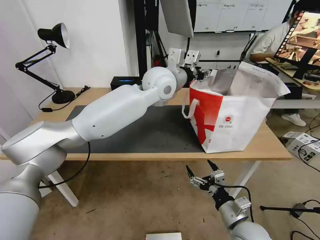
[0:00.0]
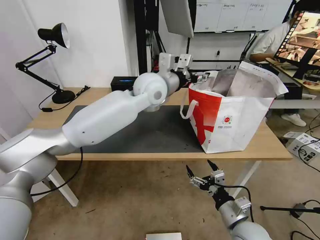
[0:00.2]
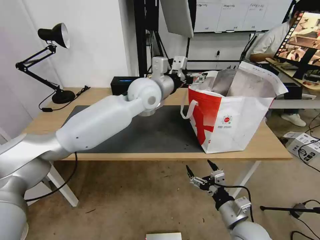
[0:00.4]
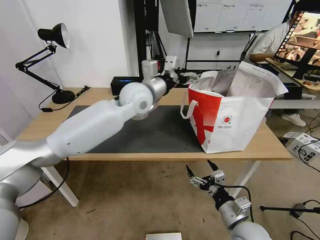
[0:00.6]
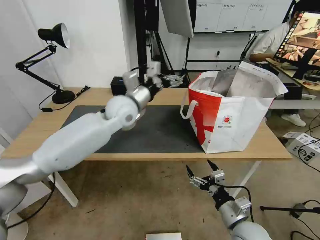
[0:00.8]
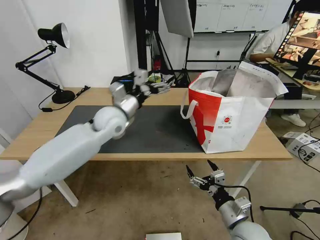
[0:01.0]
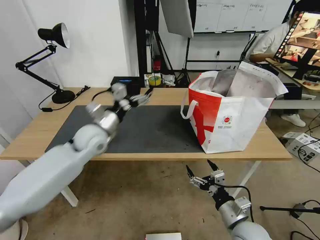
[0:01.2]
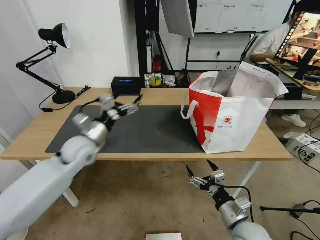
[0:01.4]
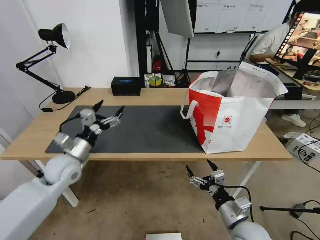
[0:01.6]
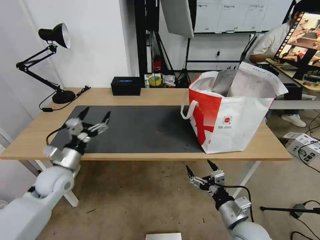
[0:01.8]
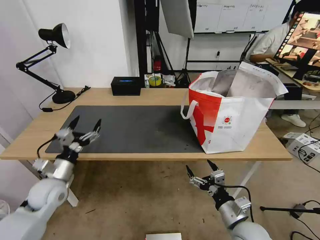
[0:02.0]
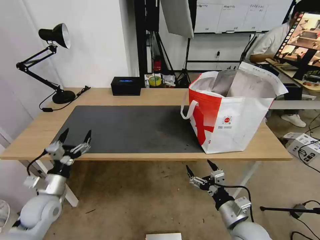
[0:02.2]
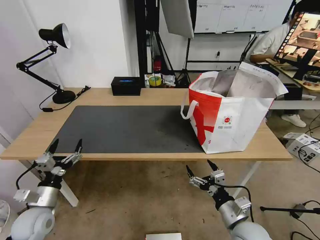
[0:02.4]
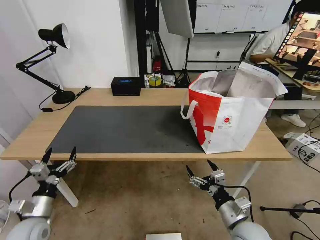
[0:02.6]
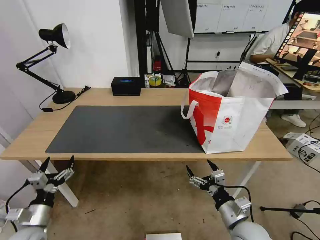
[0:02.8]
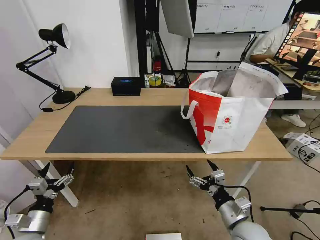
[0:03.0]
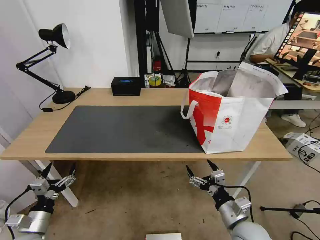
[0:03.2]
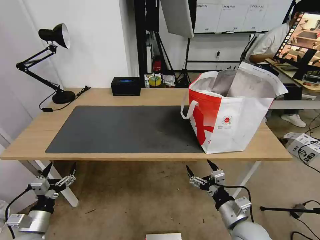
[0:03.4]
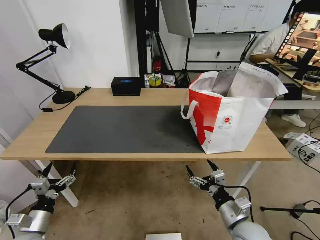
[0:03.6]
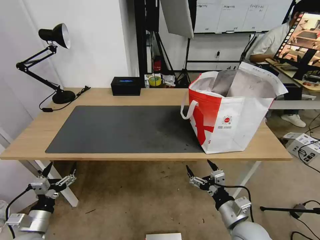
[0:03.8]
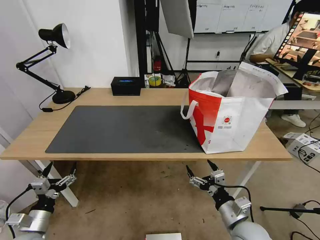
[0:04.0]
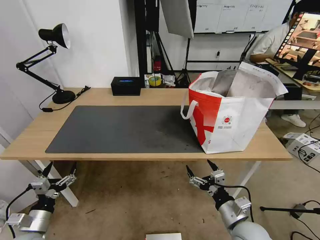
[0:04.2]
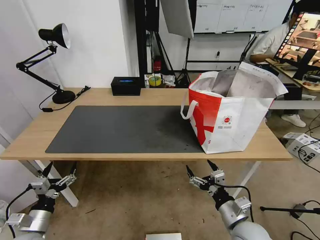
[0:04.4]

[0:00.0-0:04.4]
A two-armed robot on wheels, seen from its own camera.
Task of the whole recording: Pick up the trash from the table and place it into the takeout bag.
0:00.0 to 0:01.4: The left gripper travels to the left, downward and backward by about 35 cm, and opens.
0:01.4 to 0:03.0: The left gripper travels backward, downward and to the left by some 30 cm.
0:03.0 to 0:04.4: Neither gripper changes place.

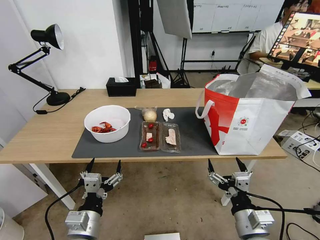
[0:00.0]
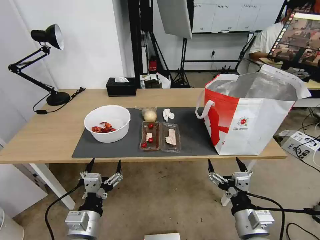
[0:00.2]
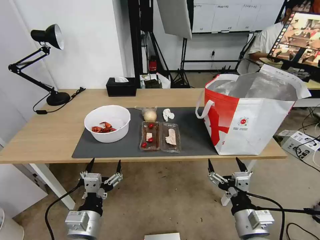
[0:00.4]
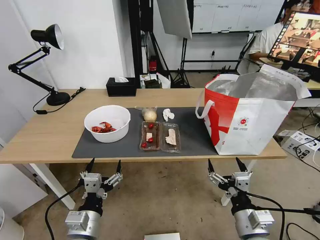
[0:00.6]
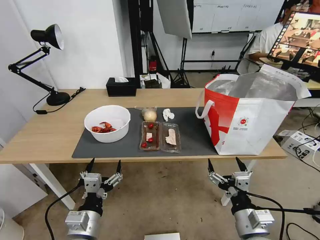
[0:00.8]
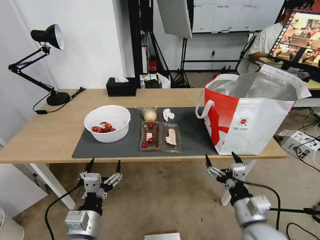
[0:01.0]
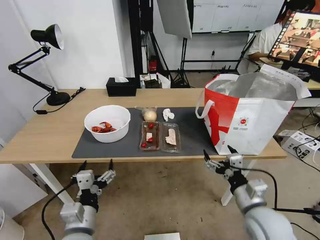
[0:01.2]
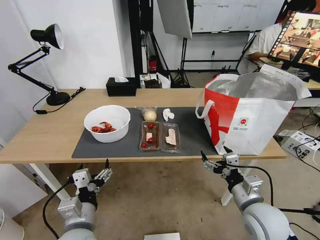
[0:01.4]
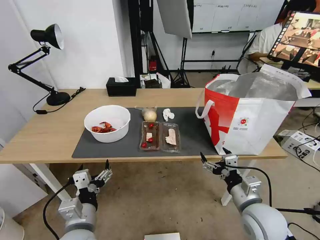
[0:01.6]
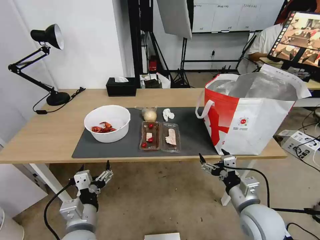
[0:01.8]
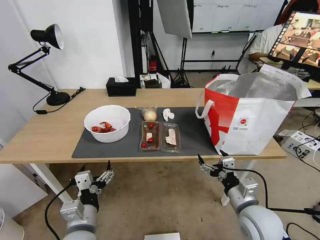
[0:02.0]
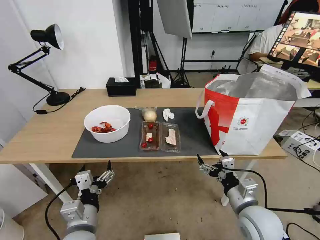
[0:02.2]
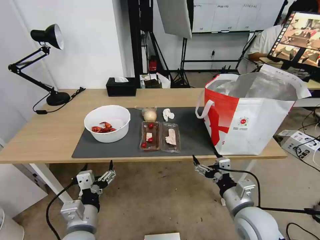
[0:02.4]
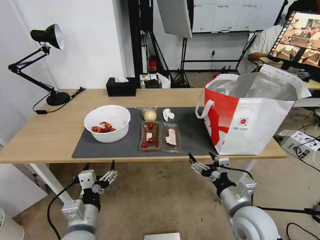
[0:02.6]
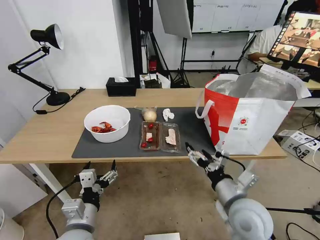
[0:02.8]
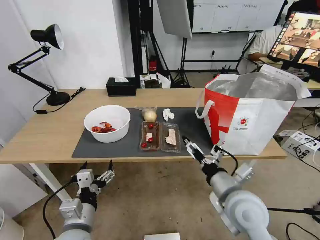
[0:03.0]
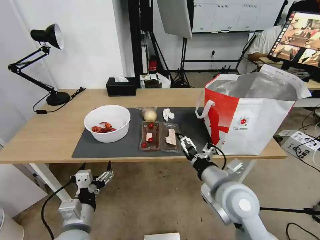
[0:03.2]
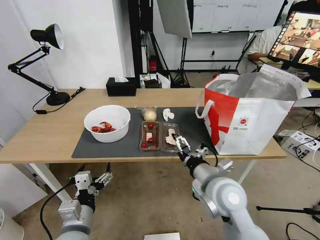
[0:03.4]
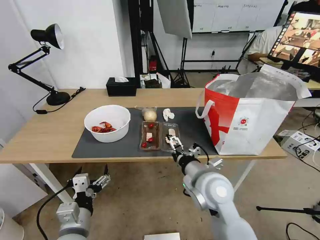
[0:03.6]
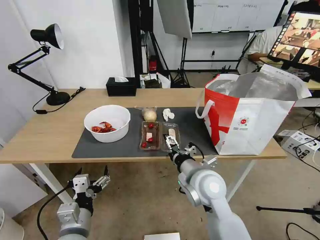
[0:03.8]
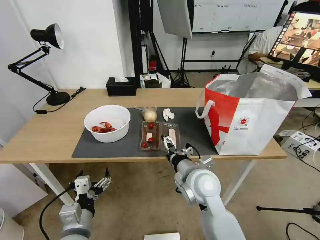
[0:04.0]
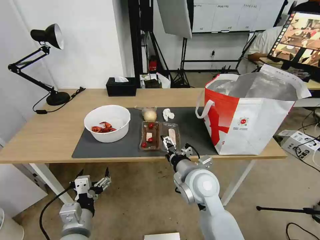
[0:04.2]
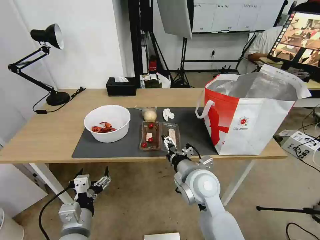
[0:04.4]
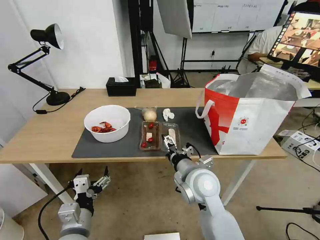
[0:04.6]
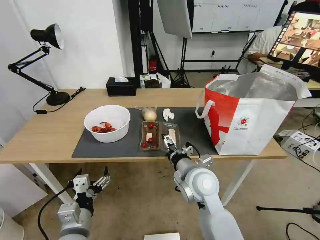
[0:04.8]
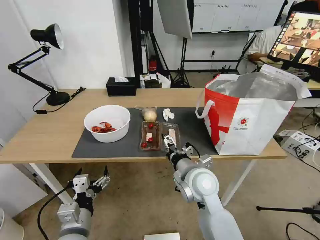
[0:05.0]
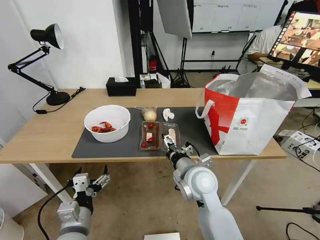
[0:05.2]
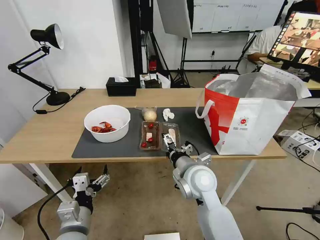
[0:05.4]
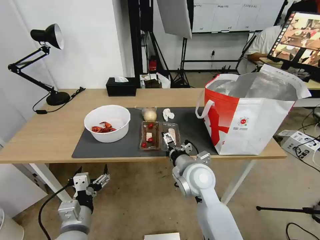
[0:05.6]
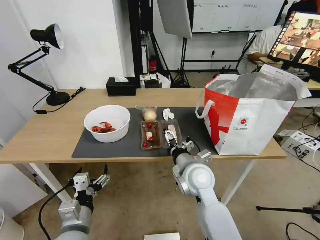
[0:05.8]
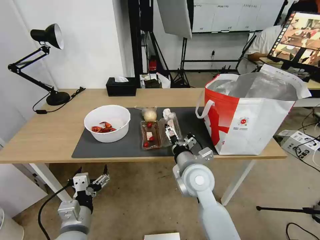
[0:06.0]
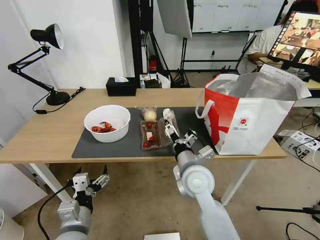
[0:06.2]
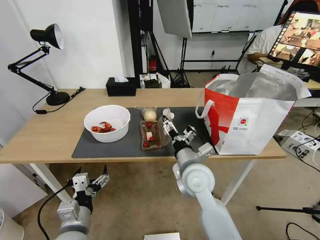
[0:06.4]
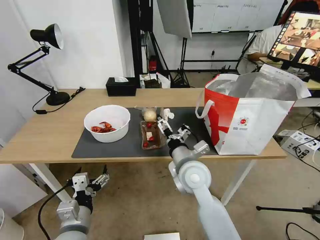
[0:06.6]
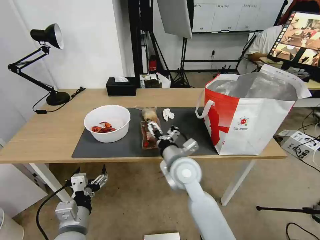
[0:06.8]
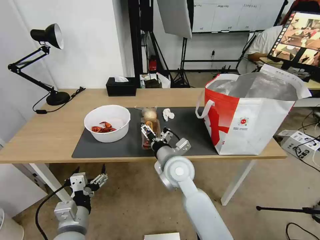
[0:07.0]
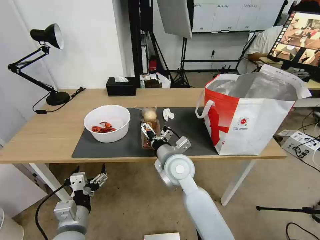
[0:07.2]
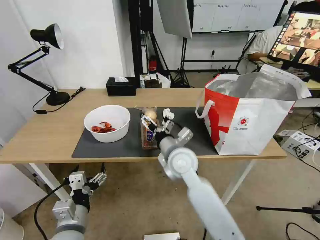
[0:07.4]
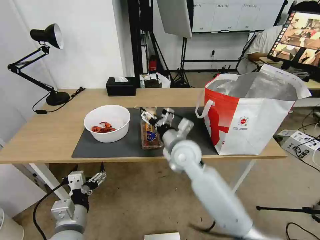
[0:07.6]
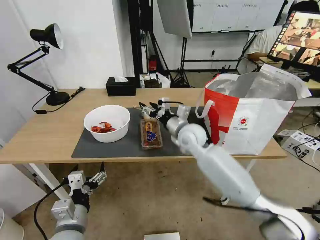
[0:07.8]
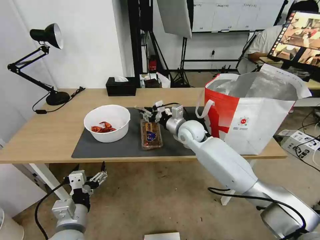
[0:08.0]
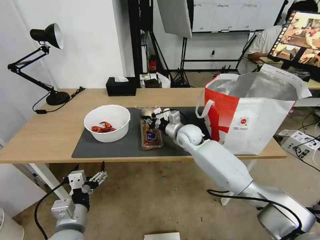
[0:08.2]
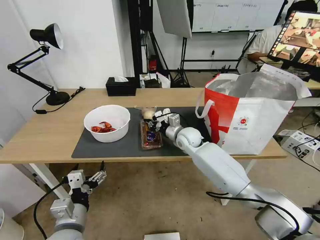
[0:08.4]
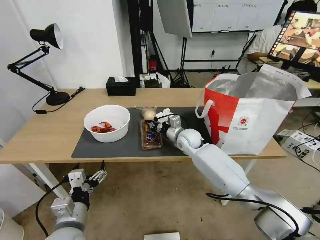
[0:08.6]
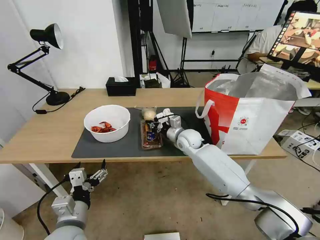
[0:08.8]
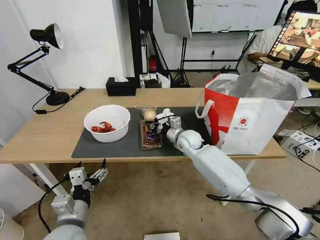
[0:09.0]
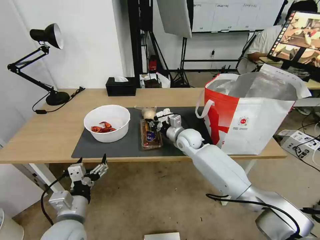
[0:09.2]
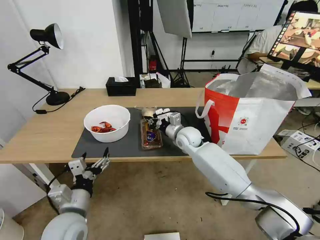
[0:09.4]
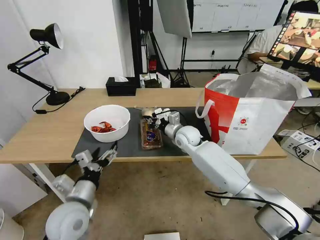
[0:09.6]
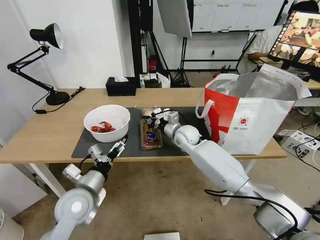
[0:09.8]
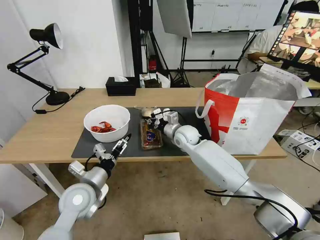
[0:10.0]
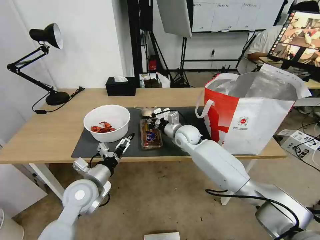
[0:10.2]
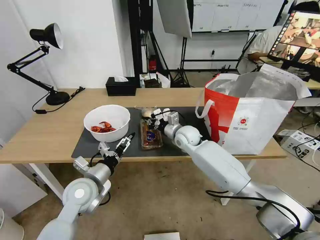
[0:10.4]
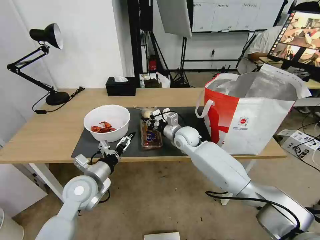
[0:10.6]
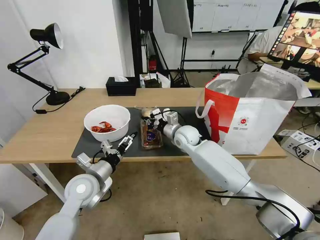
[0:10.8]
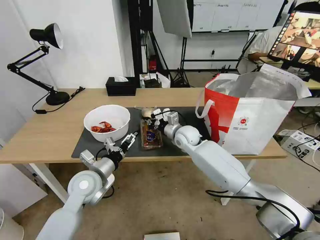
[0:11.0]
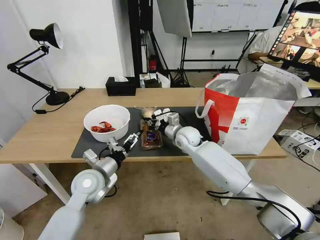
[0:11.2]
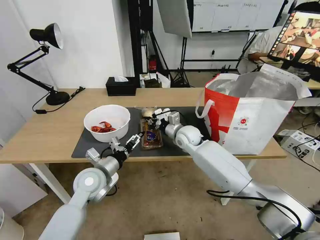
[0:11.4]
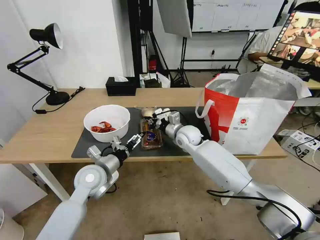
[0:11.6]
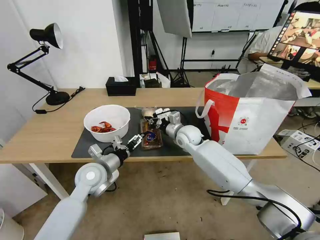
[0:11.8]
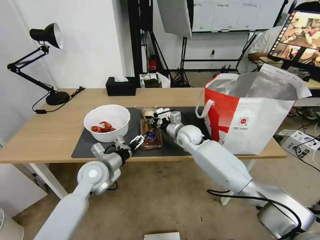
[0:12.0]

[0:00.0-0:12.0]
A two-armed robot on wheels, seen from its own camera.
Task of the whole recording: Pick up the trash from the table and place it into the takeout bag.
0:01.6 to 0:03.0: The right gripper shifts some 10 cm to the left and upward.
0:03.0 to 0:04.4: The right gripper travels to the left and forward by some 10 cm.
0:04.4 to 0:06.0: There are only small adjustments of the grippers.
0:06.0 to 0:07.6: The right gripper moves forward, some 10 cm.
0:07.6 to 0:09.0: The right gripper is displaced forward and downward by about 15 cm, and closes up.
0:09.0 to 0:10.4: The left gripper travels forward by about 10 cm.
0:10.4 to 0:12.0: The left gripper is displaced forward by approximately 5 cm.

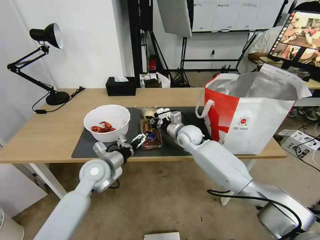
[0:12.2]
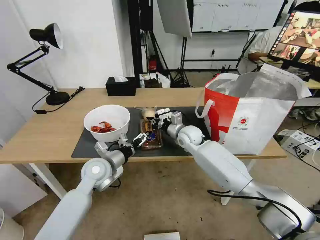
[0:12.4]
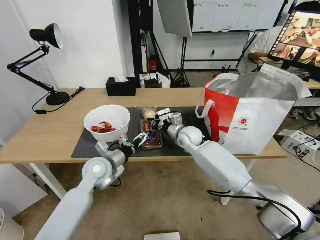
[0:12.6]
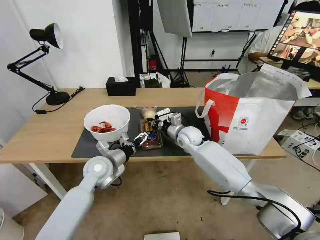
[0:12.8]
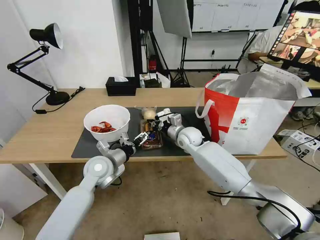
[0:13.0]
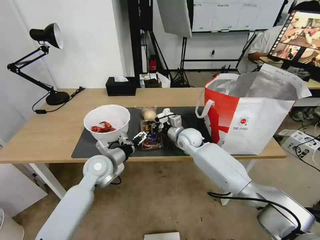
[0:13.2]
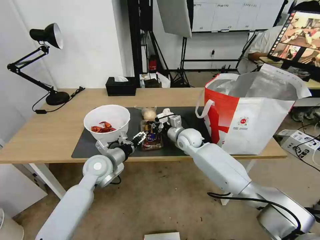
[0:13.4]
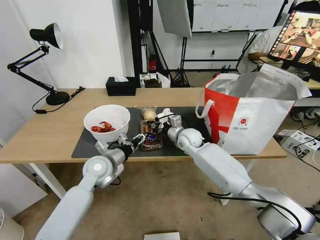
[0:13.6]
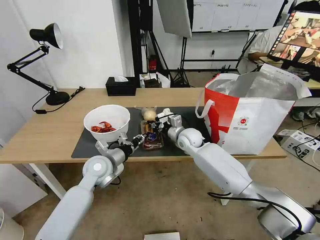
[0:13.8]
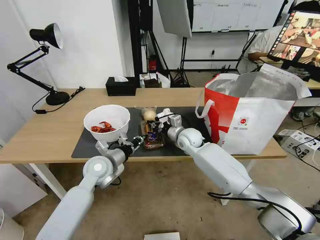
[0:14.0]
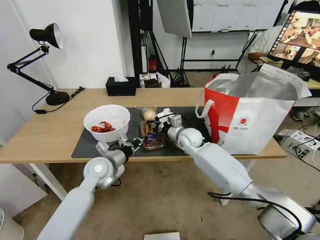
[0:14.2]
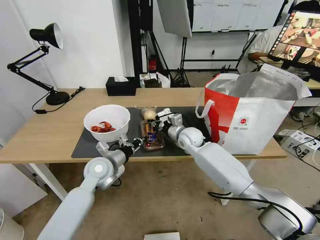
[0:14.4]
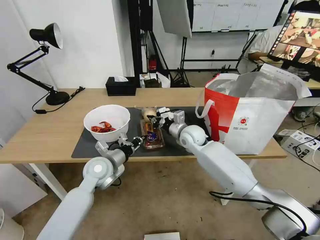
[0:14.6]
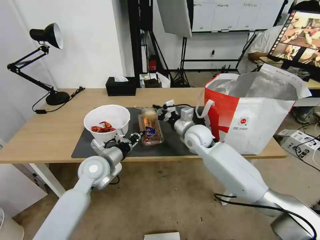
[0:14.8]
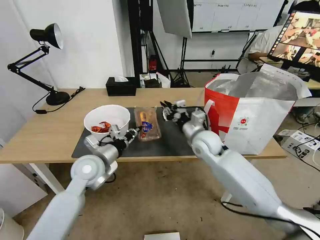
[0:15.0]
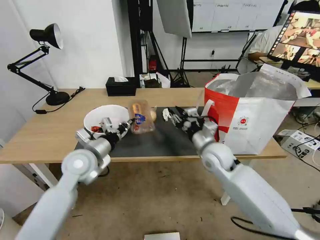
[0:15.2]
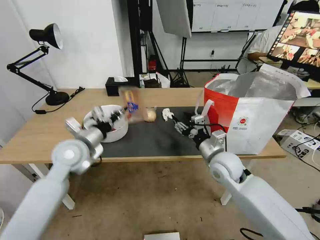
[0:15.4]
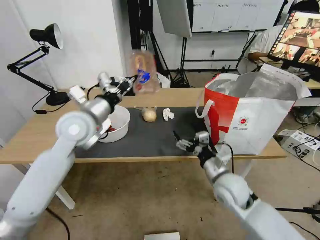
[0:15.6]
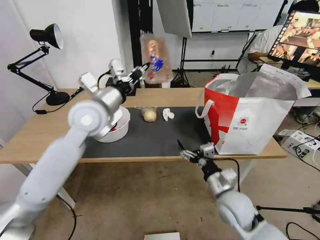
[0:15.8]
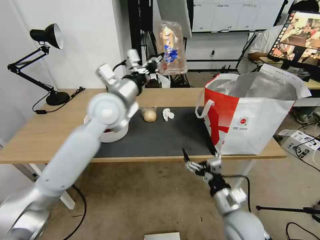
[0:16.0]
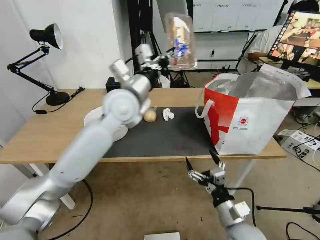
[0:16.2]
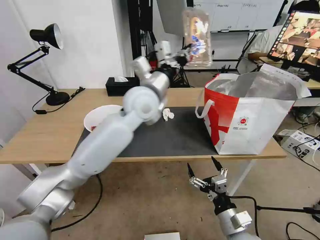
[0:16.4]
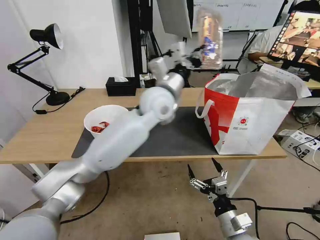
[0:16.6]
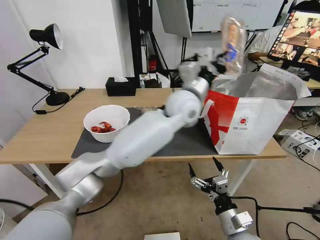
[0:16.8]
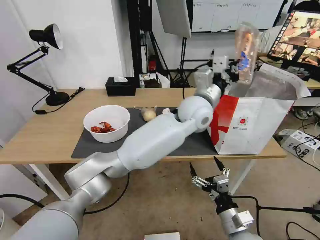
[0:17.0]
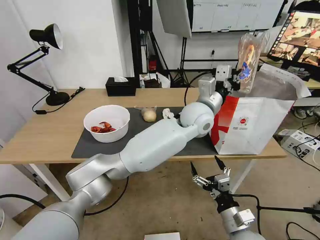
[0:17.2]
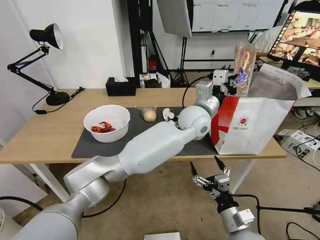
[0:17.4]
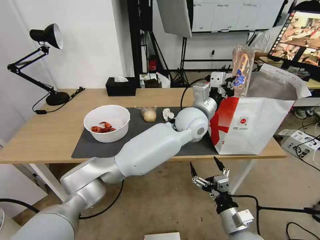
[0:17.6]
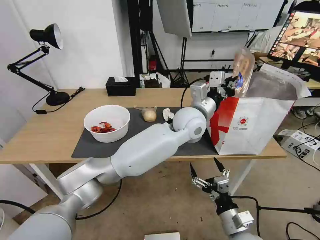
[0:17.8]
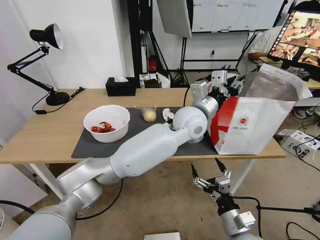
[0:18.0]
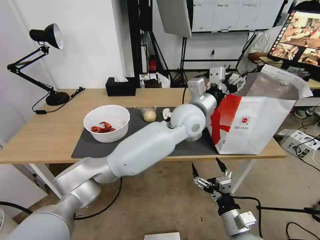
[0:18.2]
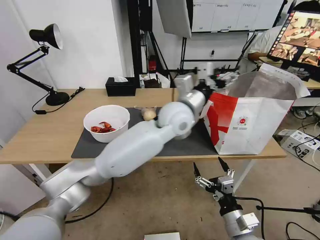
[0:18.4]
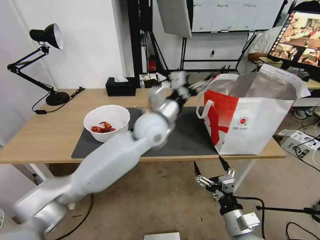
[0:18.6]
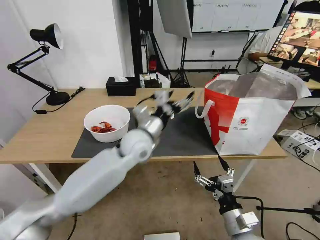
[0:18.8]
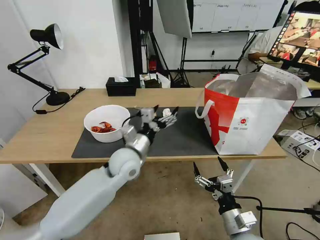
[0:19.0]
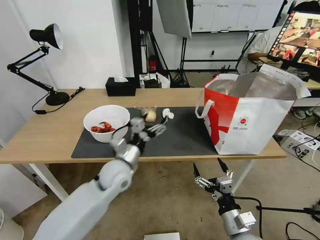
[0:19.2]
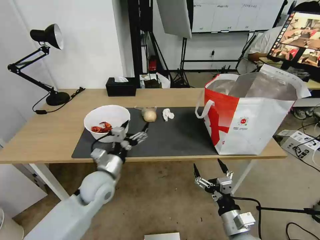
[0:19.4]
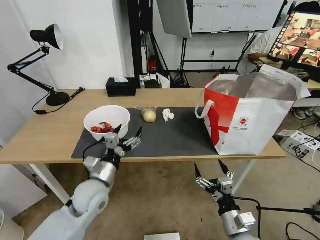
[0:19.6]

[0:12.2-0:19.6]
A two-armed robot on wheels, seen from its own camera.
Task of the whole recording: Pick up the trash from the table and place it into the takeout bag.
0:12.2 to 0:13.6: The left gripper closes up.
0:13.6 to 0:15.2: The right gripper is displaced backward and to the right by some 15 cm, and opens; the left gripper goes about 5 cm upward, and closes.
0:15.2 to 0:16.6: The left gripper is displaced to the right, upward and forward by about 30 cm. The right gripper goes some 25 cm backward and downward, and opens its fingers.
0:16.6 to 0:18.2: The left gripper travels to the right by about 10 cm, and opens up.
0:18.2 to 0:19.6: The left gripper is displaced to the left, downward and backward by some 35 cm, and opens.
